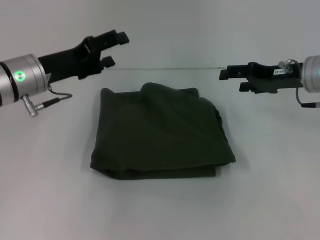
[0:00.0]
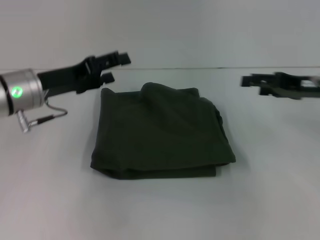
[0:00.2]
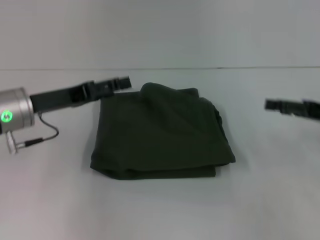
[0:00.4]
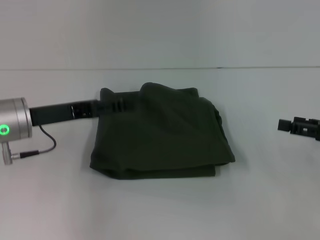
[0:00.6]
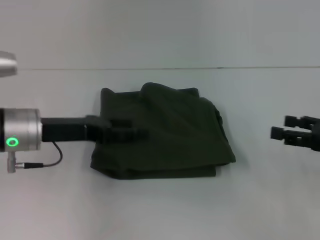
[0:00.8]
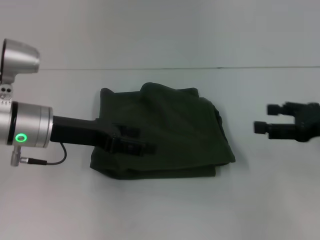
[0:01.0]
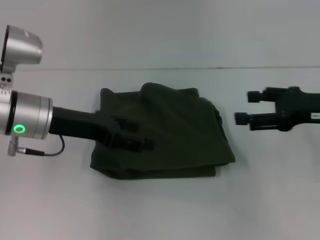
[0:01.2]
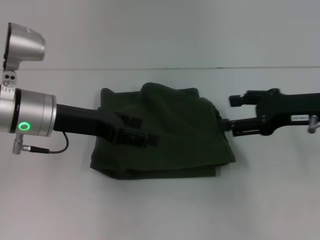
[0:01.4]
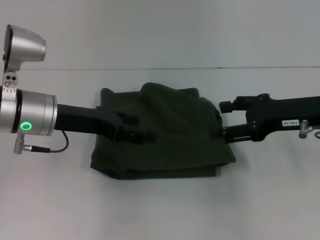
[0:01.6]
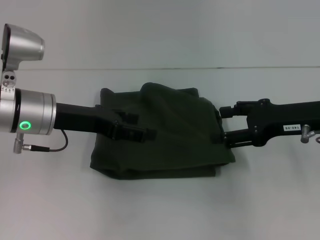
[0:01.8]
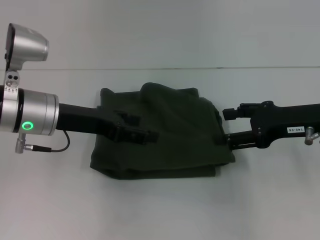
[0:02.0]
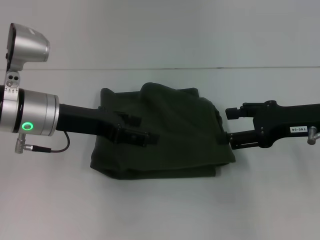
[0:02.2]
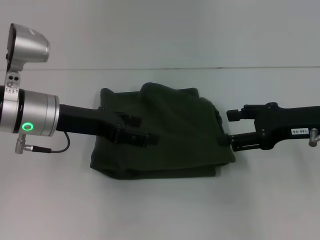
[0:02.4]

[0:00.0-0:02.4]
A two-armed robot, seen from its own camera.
0:00.0 to 0:01.2: The right gripper is displaced backward by approximately 10 cm.
0:01.2 to 0:02.4: There are only small adjustments of the grippers.
